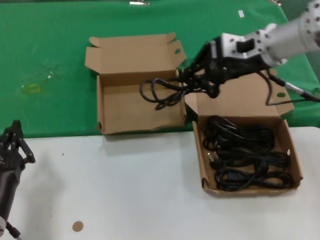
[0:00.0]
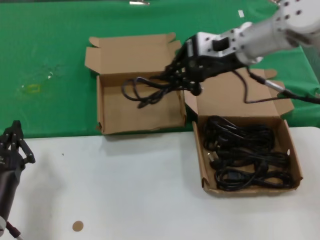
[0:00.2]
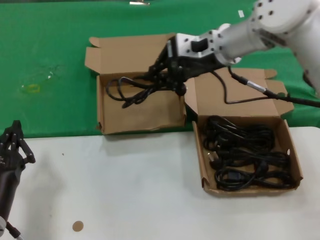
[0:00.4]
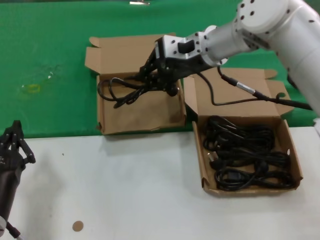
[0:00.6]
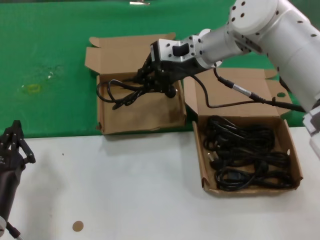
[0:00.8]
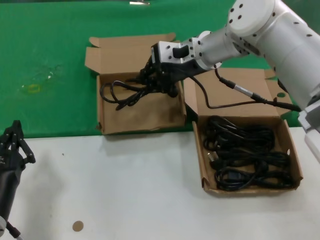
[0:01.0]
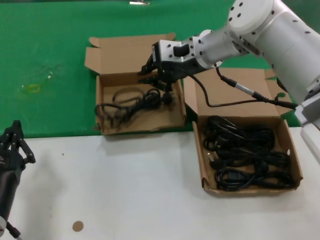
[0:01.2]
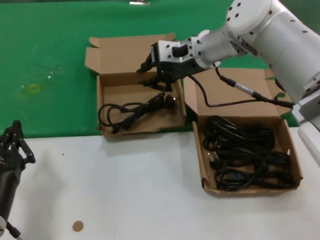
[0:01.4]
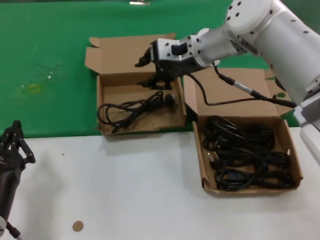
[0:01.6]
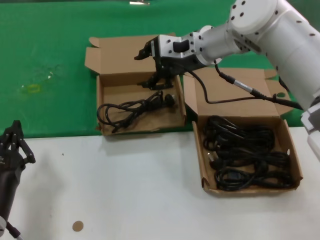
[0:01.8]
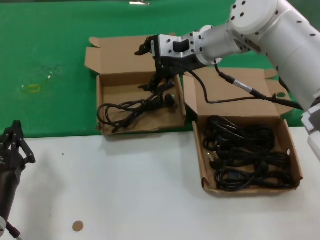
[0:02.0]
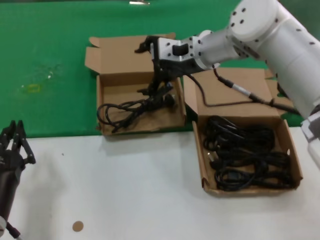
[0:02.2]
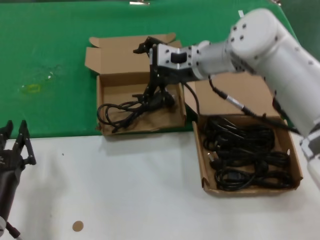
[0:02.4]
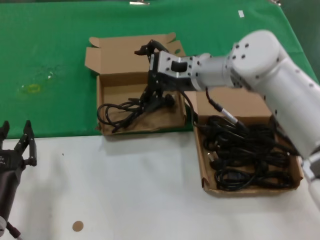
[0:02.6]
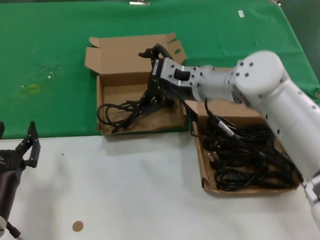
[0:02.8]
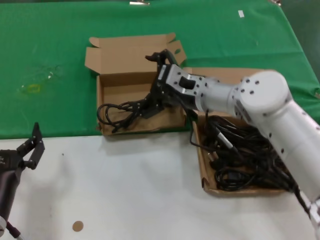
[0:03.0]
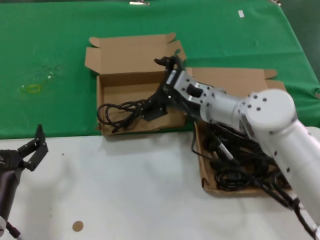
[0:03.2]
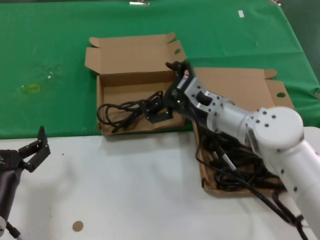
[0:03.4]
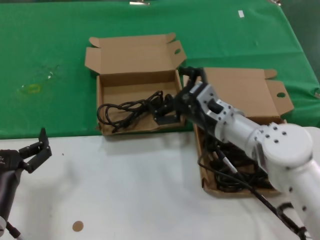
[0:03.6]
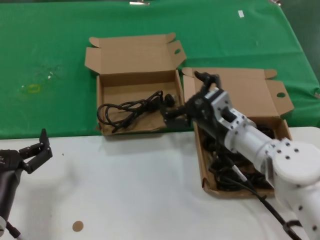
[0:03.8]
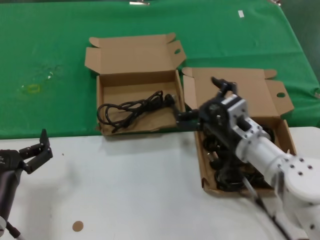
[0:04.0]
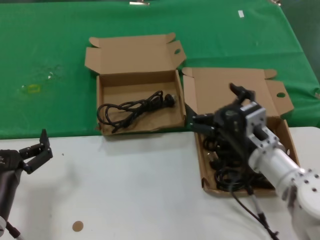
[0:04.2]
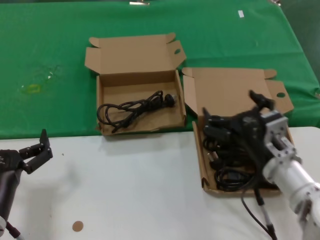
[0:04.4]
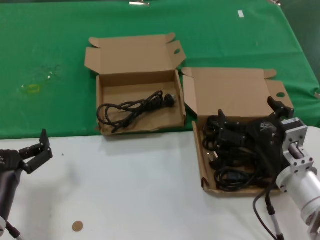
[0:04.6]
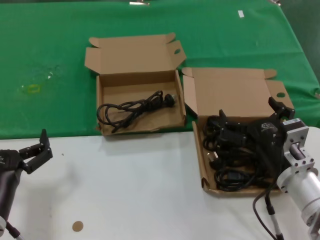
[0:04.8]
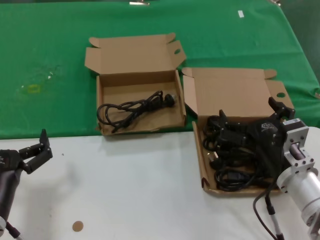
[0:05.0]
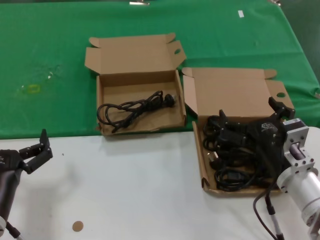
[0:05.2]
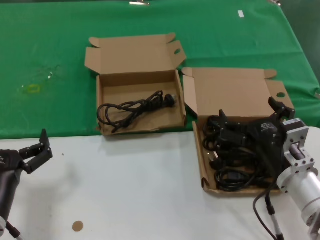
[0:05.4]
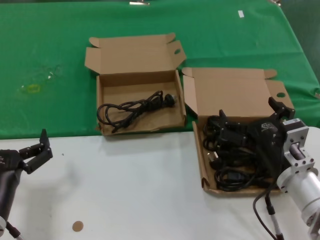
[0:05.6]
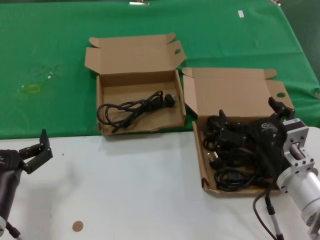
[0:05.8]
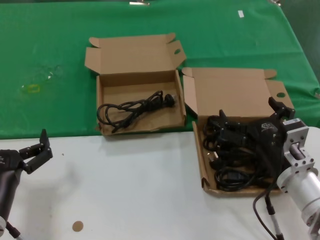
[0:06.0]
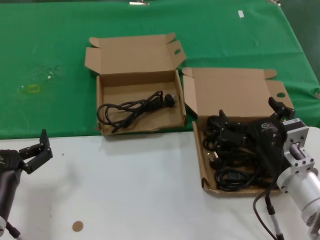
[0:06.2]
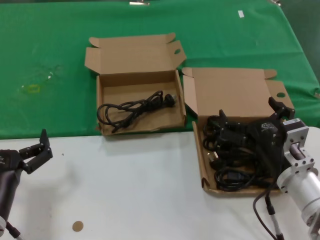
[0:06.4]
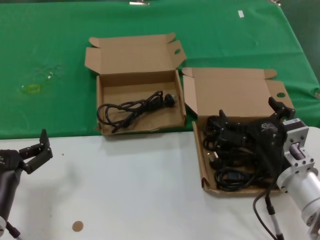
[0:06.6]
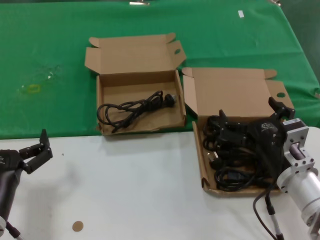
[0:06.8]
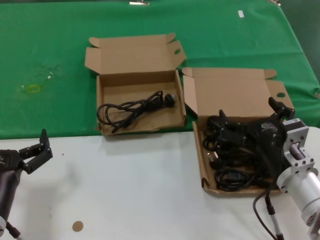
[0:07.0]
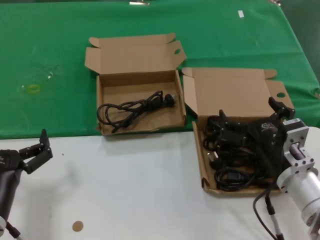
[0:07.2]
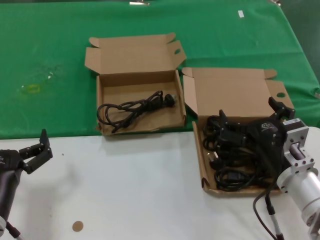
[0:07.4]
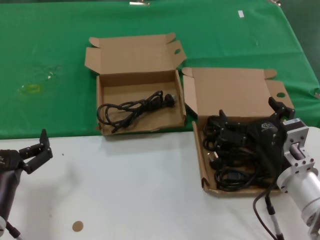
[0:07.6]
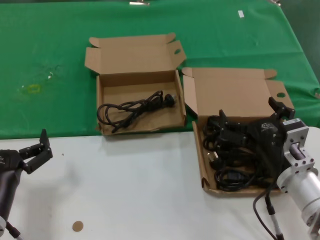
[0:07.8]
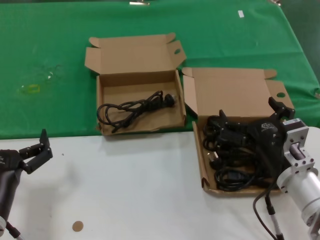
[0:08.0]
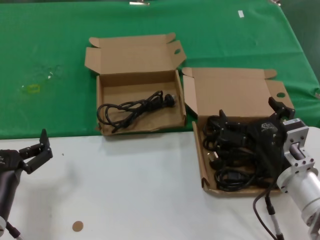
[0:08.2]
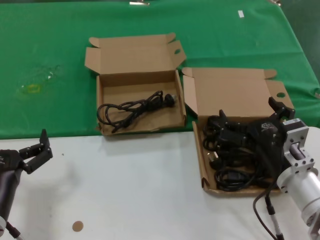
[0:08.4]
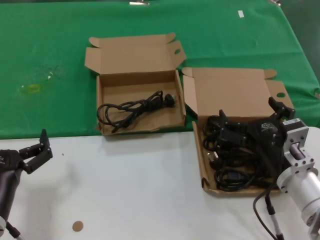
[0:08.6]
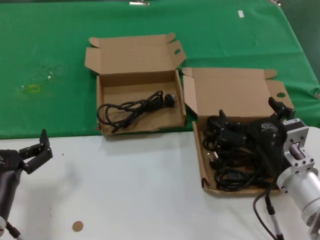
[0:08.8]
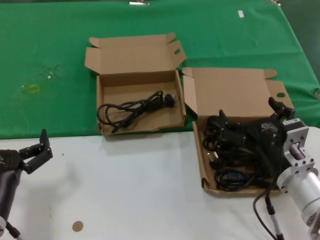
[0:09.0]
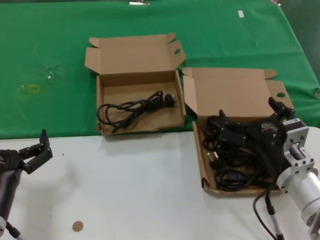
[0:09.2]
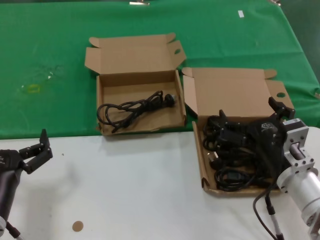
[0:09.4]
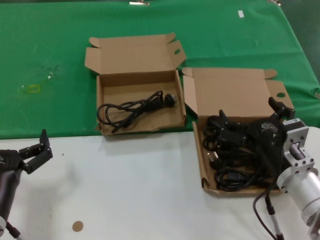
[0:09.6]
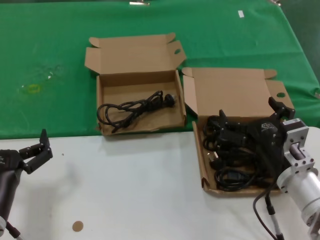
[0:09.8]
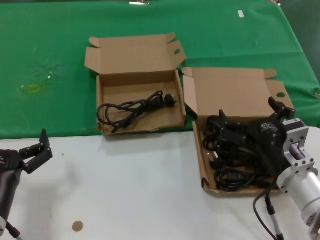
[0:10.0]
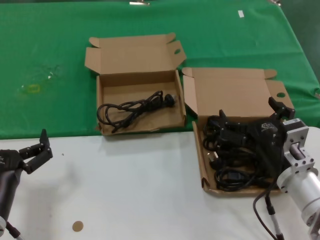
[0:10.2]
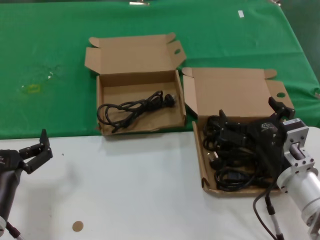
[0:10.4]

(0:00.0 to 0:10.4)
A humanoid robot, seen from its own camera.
Task of the whole recording: take the parts from the box containing them and put them into an empty box.
Step, 0:00.0 - 0:01.4: Place the data cable in the another box.
0:00.0 - 0:01.4: The right hand heads to the left and forward, covering about 15 cm.
0:01.4 - 0:03.0: The right hand shifts approximately 10 cm downward and backward.
0:03.0 - 0:04.4: The right hand travels backward, downward and to the right by approximately 20 cm.
0:04.4 - 0:06.0: The hands stay close to where they were, moving slightly.
0:06.0 - 0:10.4: Neither hand changes place.

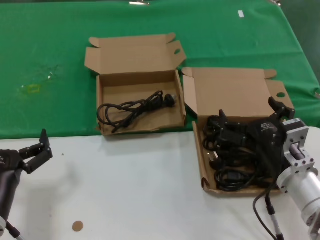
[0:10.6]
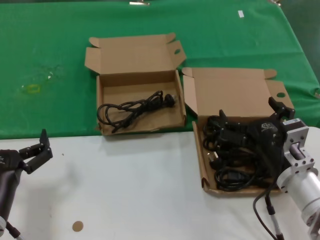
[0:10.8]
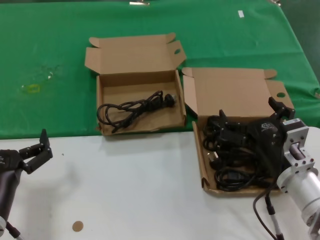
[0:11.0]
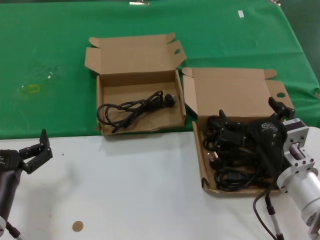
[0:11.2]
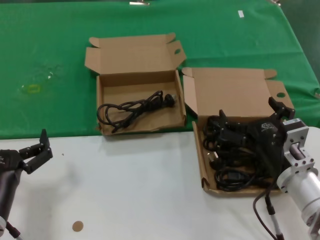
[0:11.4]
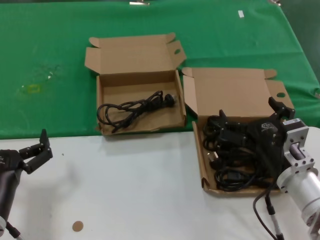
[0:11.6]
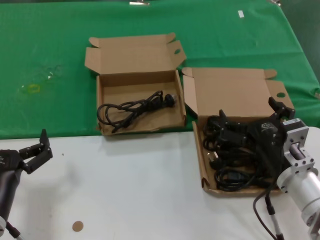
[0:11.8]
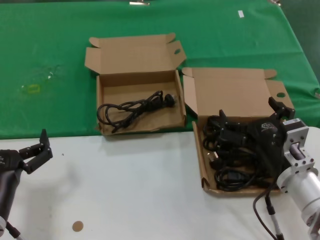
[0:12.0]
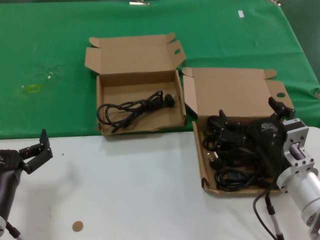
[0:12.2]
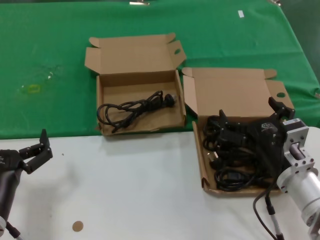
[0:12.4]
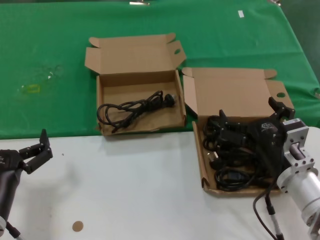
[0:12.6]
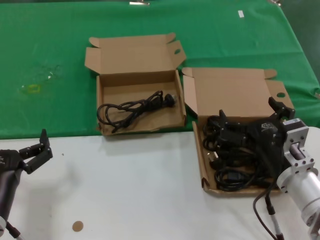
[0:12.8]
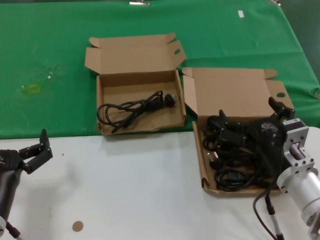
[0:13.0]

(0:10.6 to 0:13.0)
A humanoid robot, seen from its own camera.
Task of the whole recording: take the parts from the box containing them and put them into an empty box.
0:10.6 - 0:13.0: The two hands keep their place.

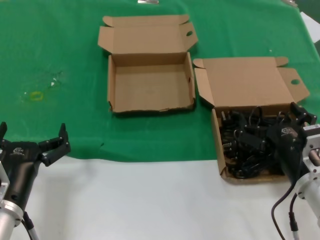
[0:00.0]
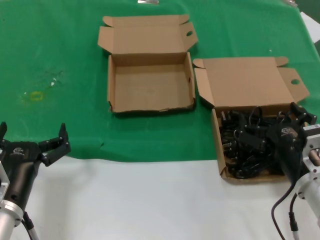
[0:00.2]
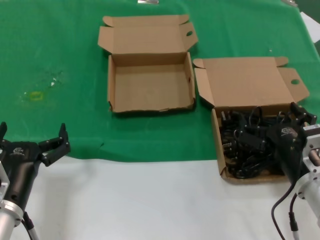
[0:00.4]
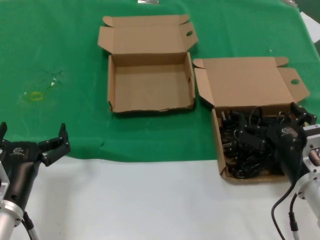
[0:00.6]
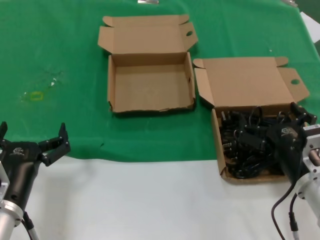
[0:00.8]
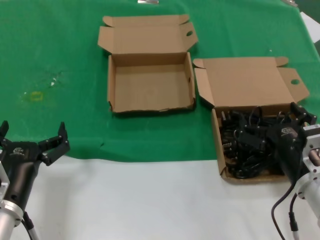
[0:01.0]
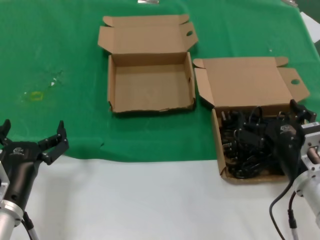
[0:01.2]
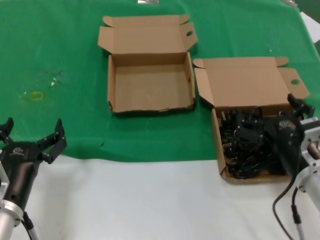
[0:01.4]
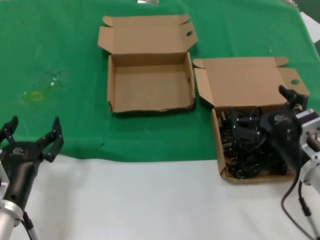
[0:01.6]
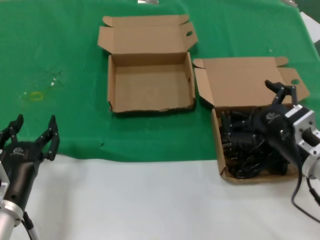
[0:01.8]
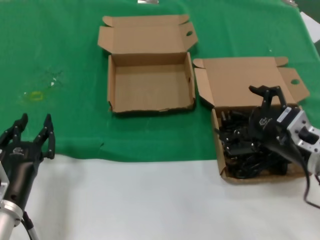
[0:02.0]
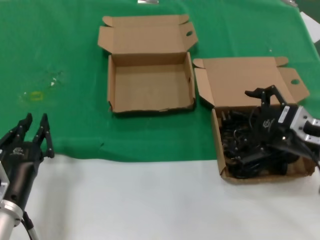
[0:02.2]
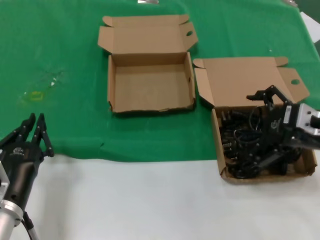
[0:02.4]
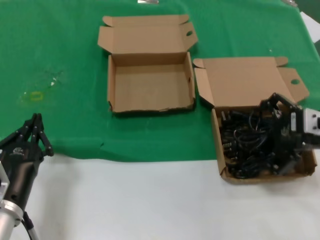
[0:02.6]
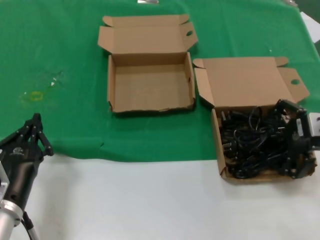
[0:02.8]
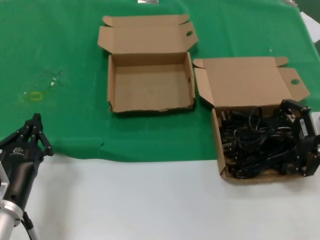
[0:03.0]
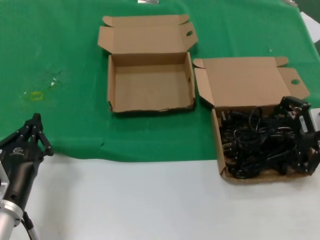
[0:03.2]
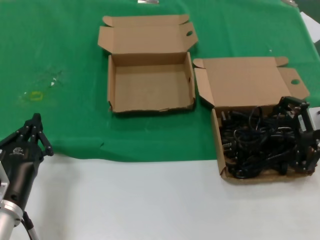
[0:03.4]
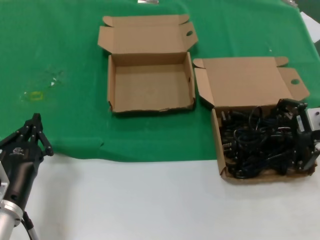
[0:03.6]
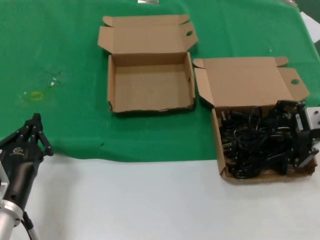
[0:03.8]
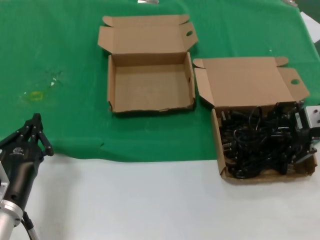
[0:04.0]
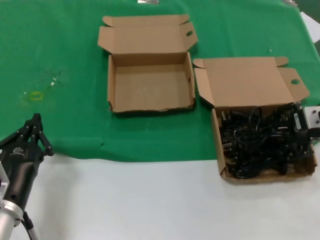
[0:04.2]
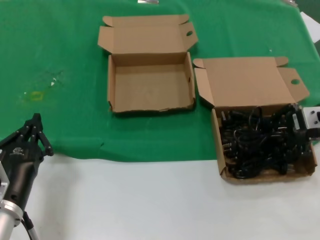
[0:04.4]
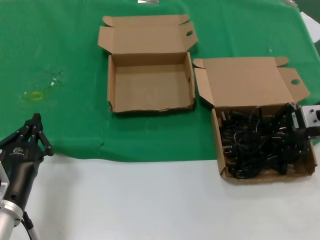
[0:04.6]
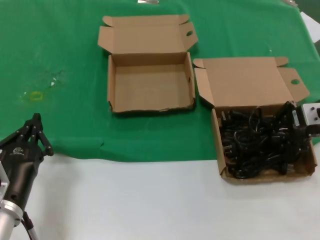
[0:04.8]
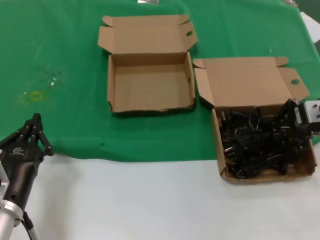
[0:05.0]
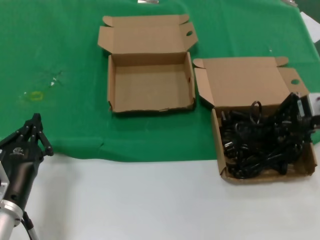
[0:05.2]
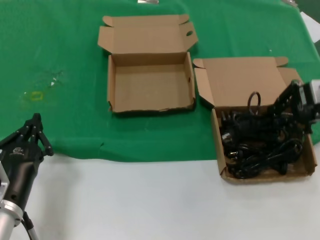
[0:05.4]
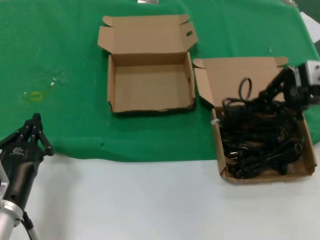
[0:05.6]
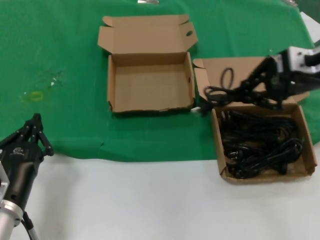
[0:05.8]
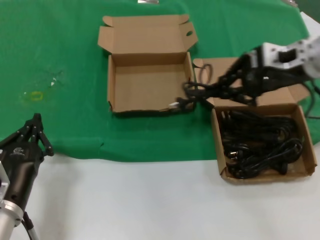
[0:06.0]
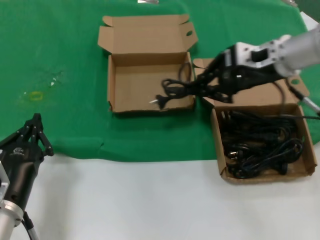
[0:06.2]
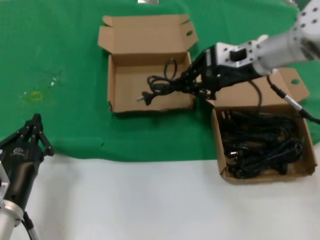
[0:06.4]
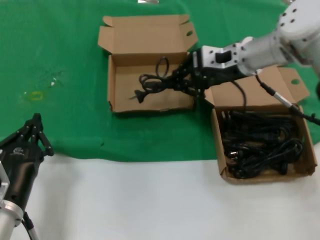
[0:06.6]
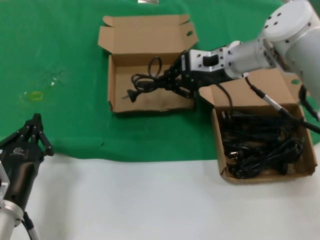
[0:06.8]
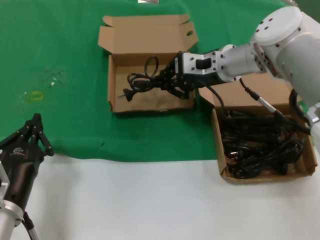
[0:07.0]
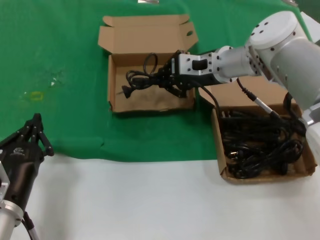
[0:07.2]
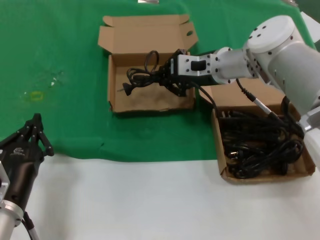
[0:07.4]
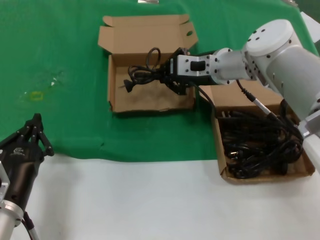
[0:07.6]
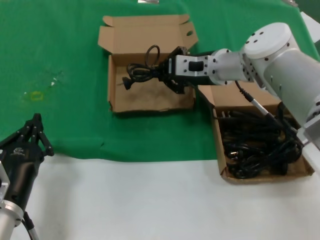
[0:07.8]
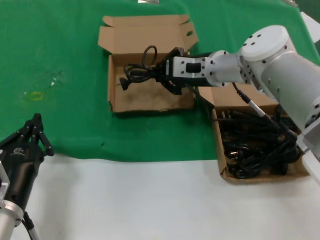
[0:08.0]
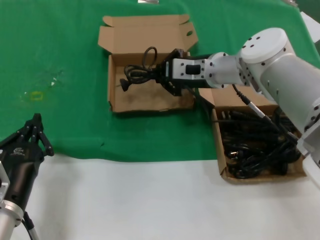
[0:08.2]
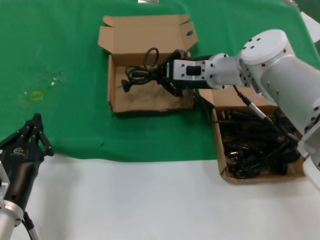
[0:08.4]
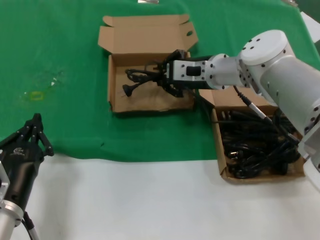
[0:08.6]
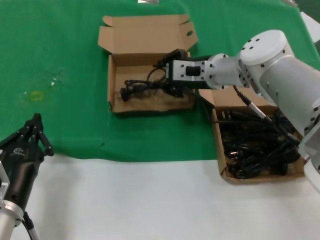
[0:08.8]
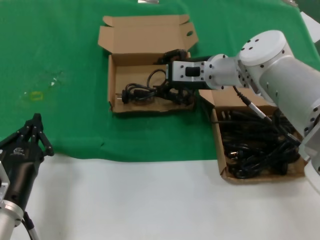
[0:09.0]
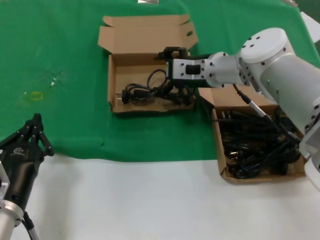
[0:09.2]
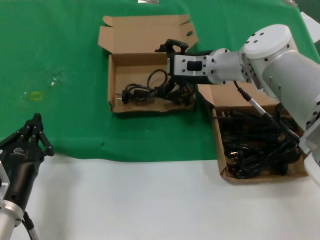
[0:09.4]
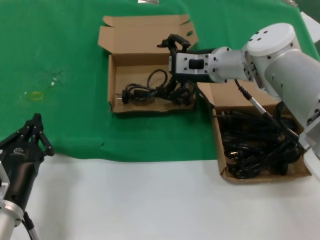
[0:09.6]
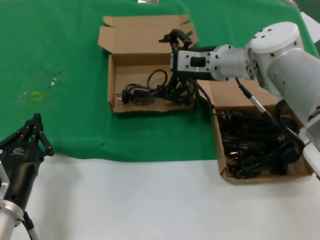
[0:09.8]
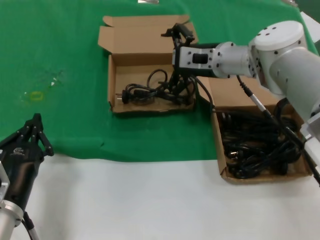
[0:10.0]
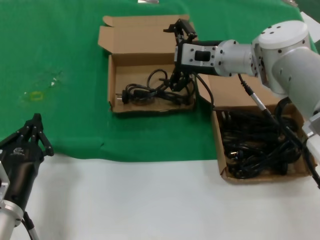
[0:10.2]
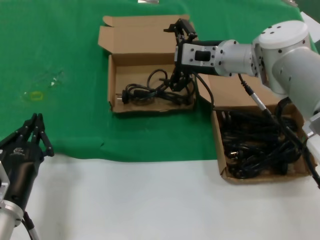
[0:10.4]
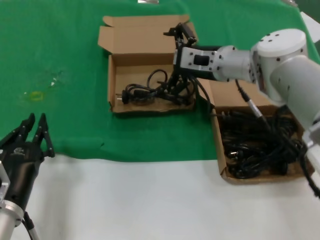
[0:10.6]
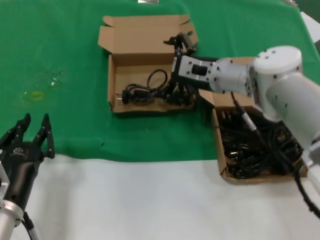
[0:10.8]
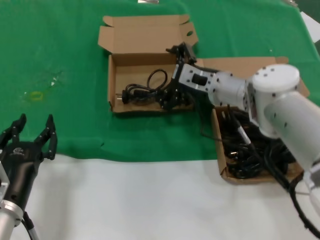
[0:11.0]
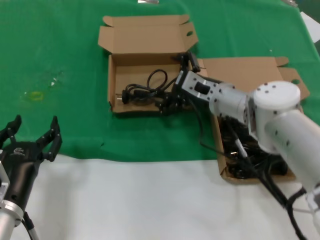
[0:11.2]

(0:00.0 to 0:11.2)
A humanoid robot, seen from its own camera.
Task of the whole recording: take the parts from the box containing them and put them into an empty box.
Step, 0:00.0 - 0:04.6: Grasp the data cable.
Step, 0:05.0 - 0:08.8: Place the data cable in the another box.
0:00.0 - 0:01.6: The hands stay close to where they were, moving slightly.
0:01.6 - 0:03.2: The right hand shifts some 20 cm upward, forward and to the right.
0:03.2 - 0:04.8: The hands stay close to where they were, moving slightly.
0:04.8 - 0:06.4: The right hand travels to the left, forward and upward by some 15 cm.
0:06.4 - 0:08.0: The right hand moves to the left and downward, roughly 10 cm.
0:08.0 - 0:09.6: Neither hand changes place.
0:09.6 - 0:11.2: The right hand travels downward by some 10 cm.
